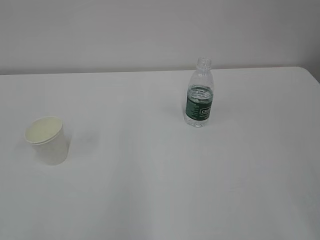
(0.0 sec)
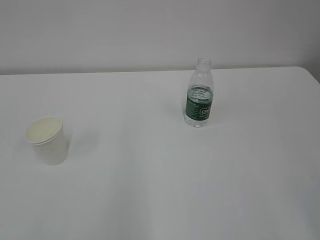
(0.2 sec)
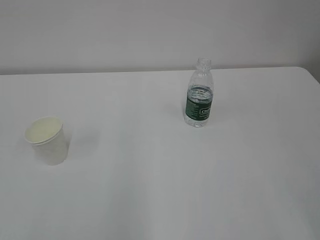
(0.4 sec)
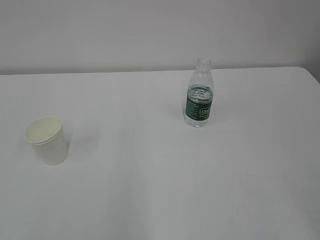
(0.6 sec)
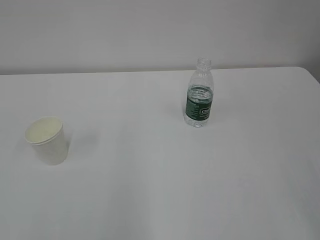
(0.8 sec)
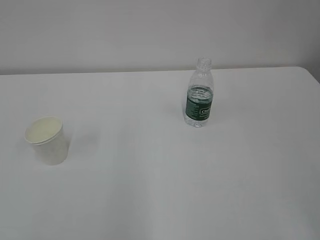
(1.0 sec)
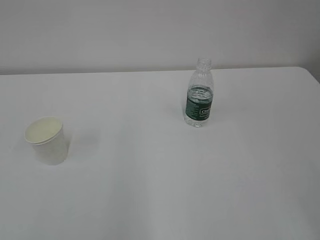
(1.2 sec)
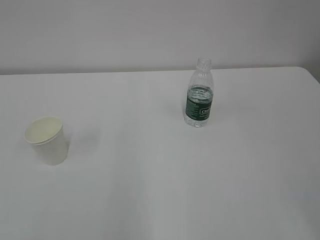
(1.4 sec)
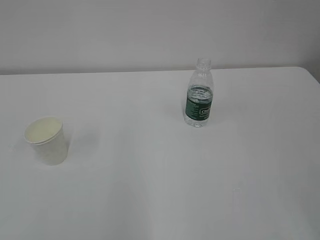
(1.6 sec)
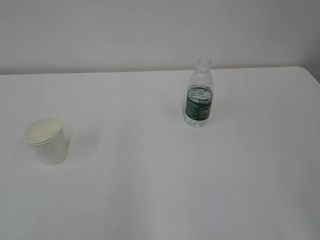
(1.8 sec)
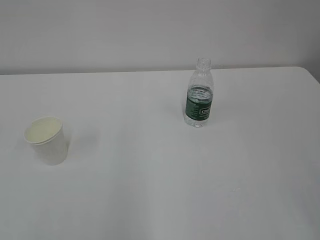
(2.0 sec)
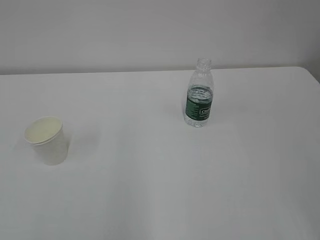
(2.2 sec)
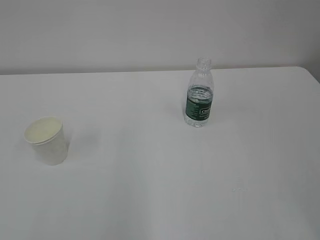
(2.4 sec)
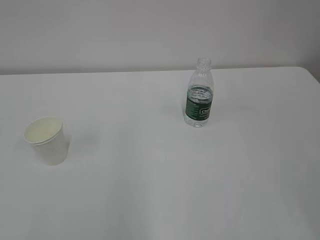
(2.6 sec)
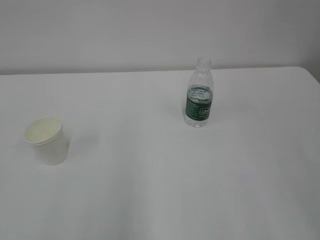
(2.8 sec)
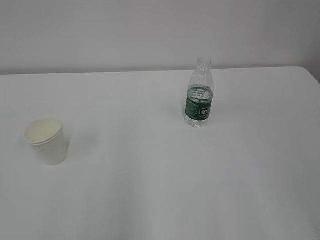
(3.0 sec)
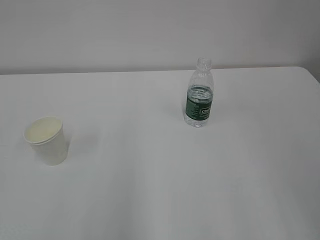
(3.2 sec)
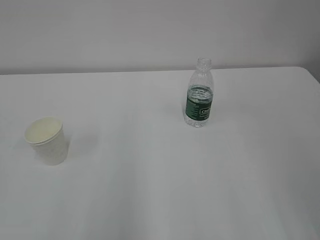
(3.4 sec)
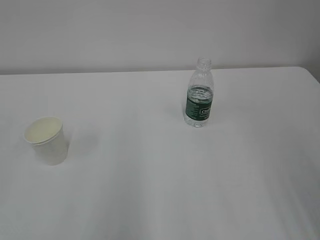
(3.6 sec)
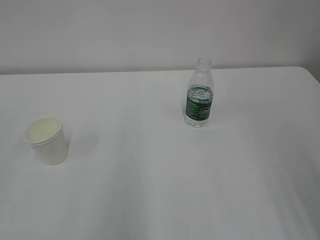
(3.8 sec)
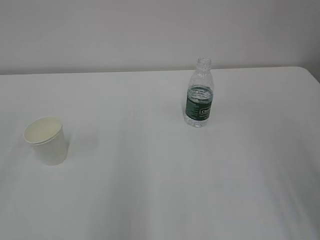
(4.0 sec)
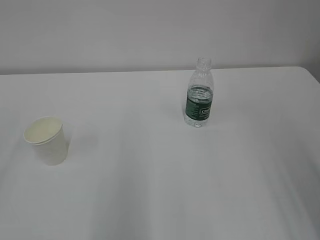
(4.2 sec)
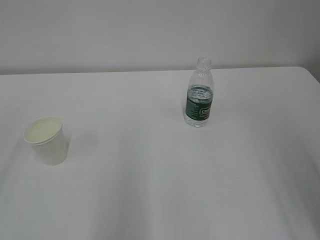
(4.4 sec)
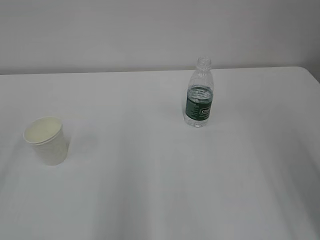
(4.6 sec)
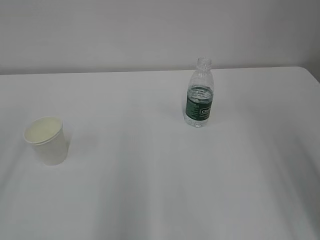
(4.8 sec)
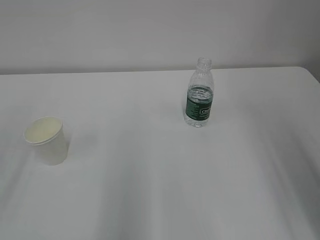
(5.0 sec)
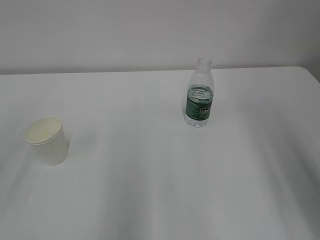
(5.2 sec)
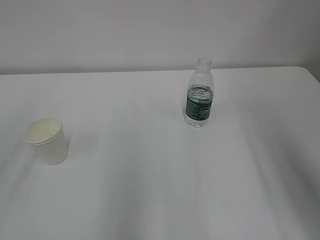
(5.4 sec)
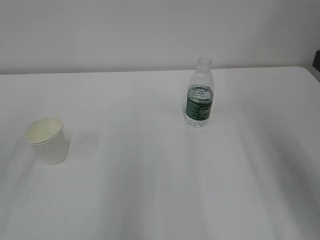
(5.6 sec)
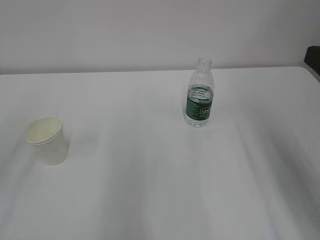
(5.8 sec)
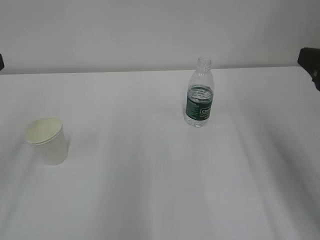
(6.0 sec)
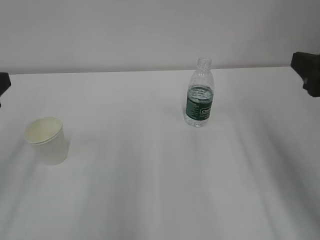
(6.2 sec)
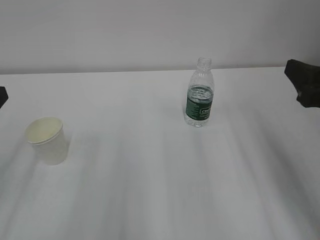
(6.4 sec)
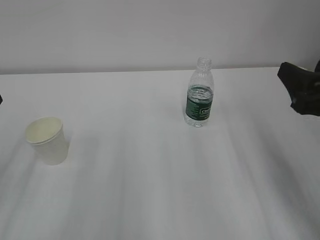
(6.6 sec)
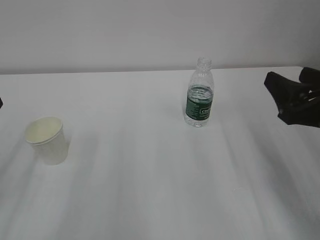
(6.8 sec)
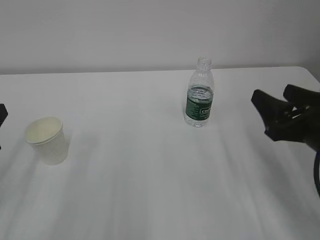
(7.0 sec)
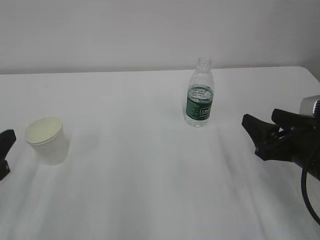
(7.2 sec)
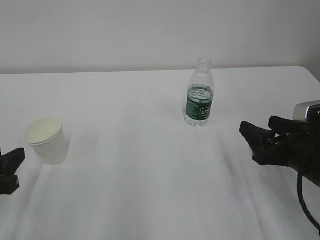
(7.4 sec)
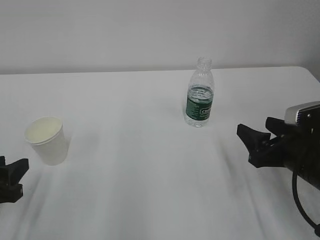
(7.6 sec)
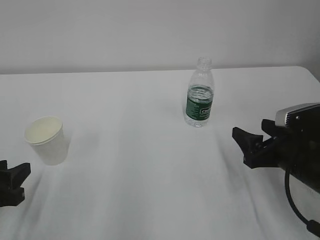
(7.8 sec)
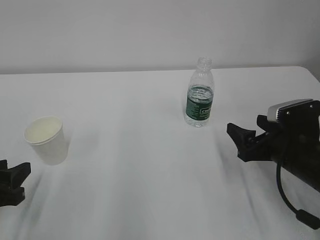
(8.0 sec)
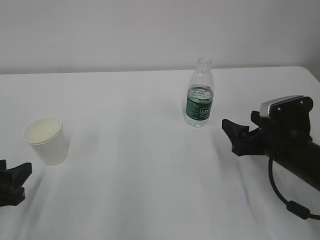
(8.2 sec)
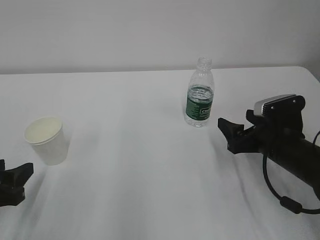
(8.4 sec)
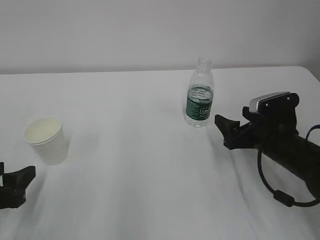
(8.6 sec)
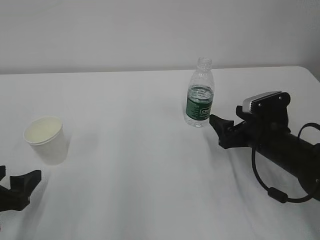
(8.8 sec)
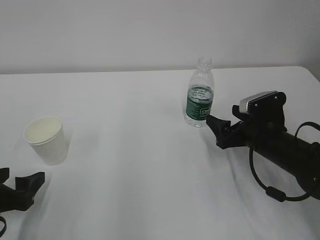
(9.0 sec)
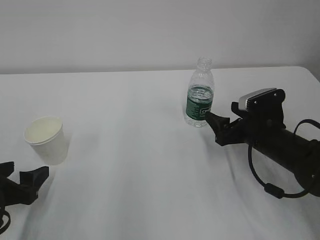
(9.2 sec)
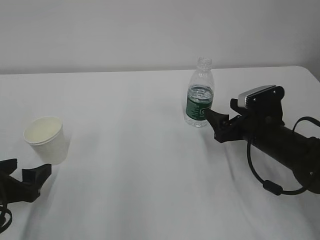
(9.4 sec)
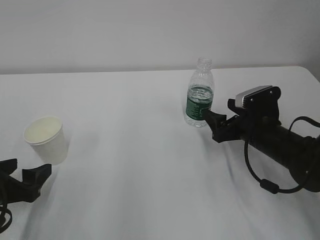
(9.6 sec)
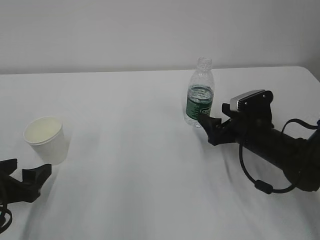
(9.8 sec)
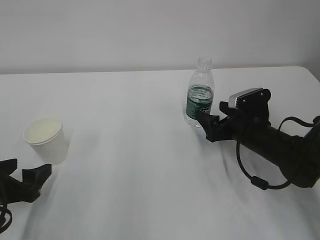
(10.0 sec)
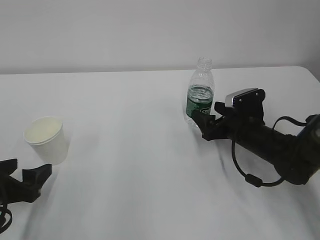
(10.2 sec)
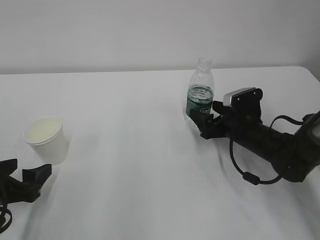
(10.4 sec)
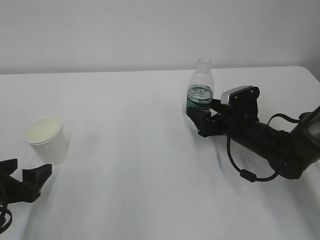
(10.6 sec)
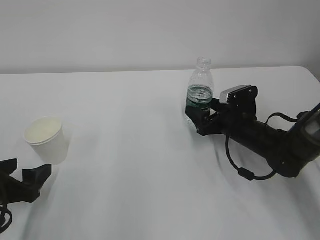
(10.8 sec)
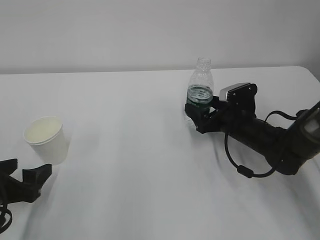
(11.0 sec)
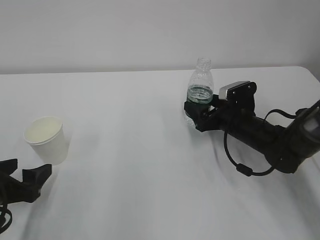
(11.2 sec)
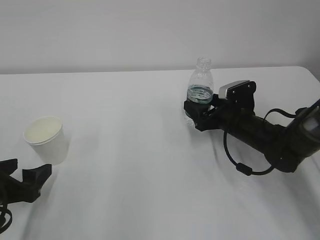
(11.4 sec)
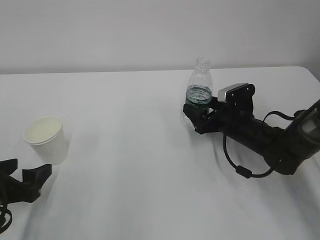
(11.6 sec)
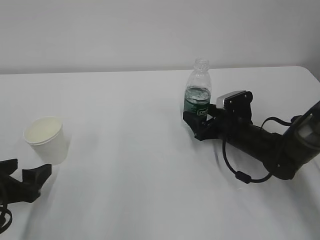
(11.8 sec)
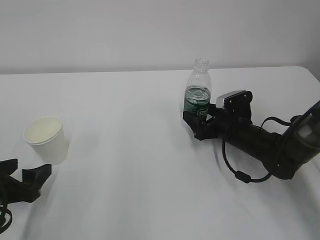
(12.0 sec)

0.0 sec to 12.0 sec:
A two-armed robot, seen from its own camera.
4.4 sec to 6.0 sec: The right gripper moves forward, roughly 10 cm.
6.0 sec to 7.6 sec: Both grippers travel together downward, about 15 cm.
7.6 sec to 9.0 sec: The left gripper opens. Meanwhile the right gripper shifts some 10 cm forward.
9.0 sec to 10.4 sec: The right gripper shifts by roughly 5 cm.
10.4 sec to 12.0 sec: The grippers stay close to where they were, moving slightly.

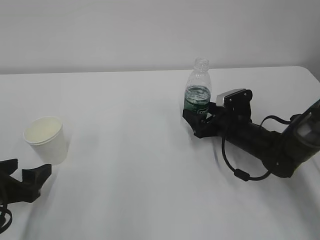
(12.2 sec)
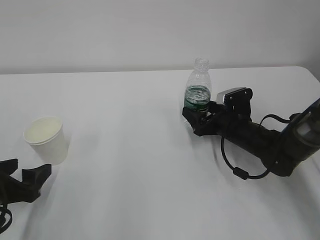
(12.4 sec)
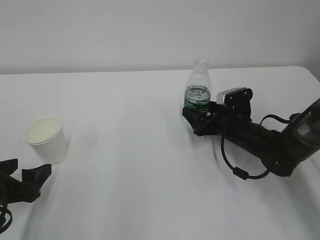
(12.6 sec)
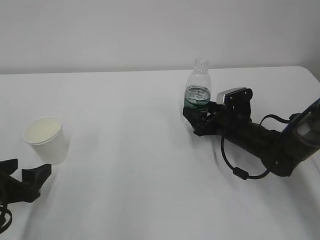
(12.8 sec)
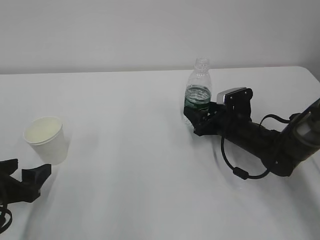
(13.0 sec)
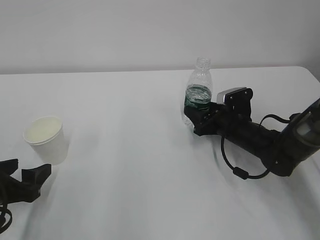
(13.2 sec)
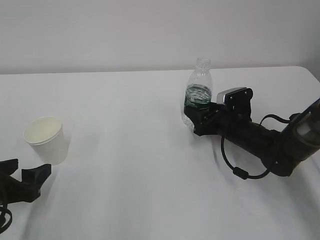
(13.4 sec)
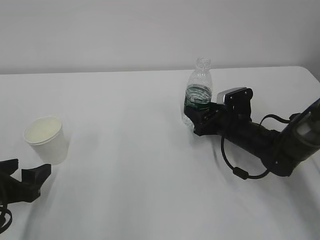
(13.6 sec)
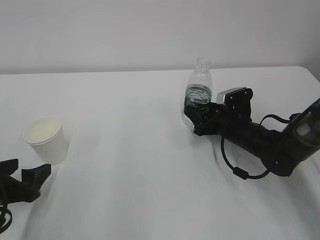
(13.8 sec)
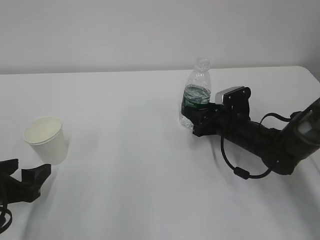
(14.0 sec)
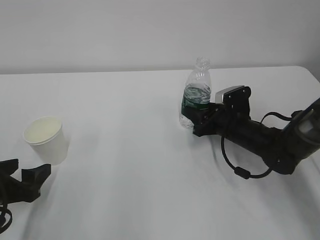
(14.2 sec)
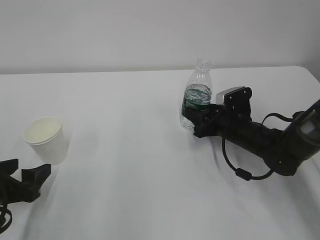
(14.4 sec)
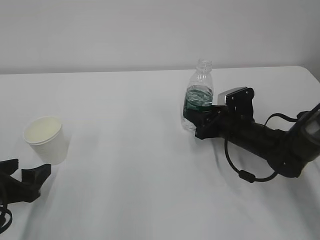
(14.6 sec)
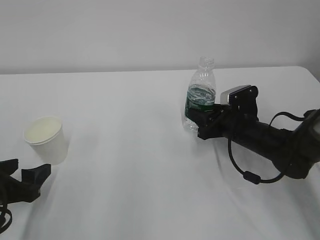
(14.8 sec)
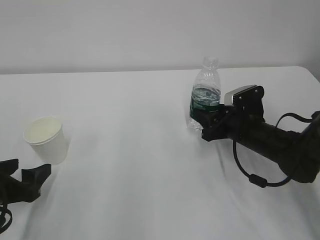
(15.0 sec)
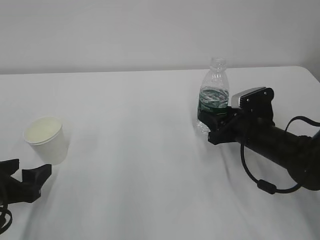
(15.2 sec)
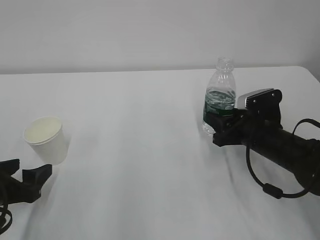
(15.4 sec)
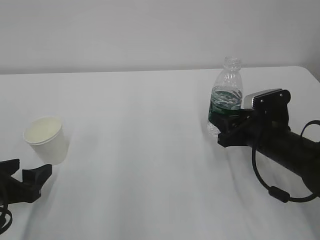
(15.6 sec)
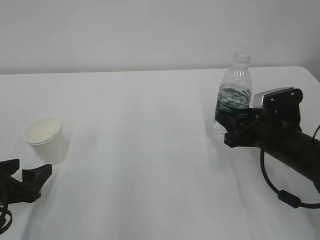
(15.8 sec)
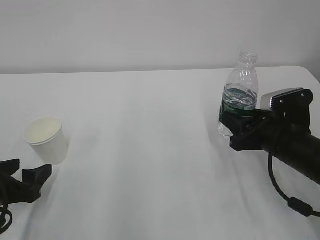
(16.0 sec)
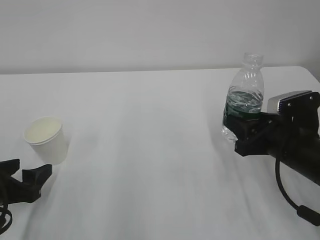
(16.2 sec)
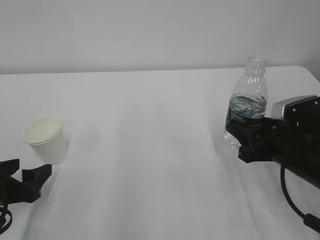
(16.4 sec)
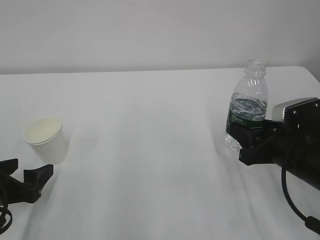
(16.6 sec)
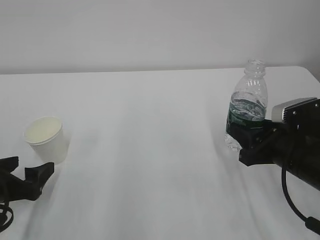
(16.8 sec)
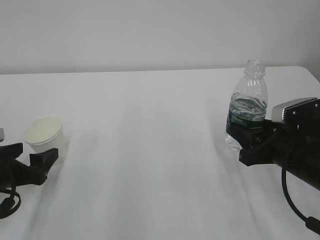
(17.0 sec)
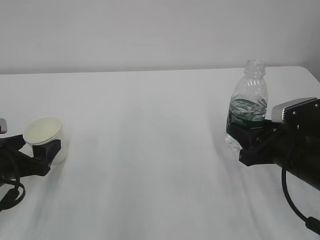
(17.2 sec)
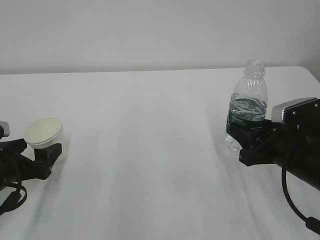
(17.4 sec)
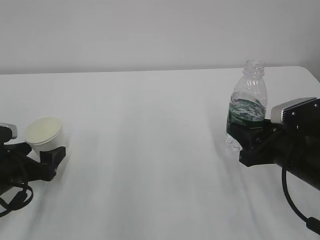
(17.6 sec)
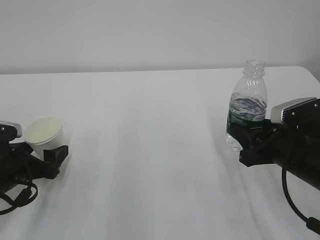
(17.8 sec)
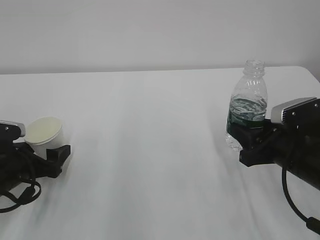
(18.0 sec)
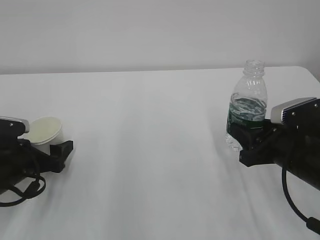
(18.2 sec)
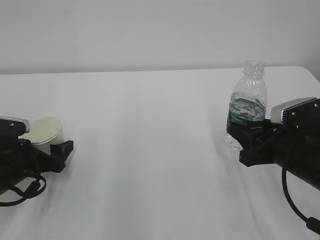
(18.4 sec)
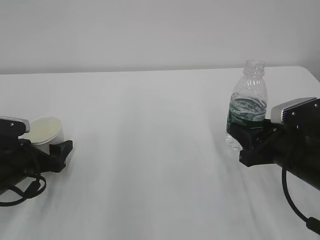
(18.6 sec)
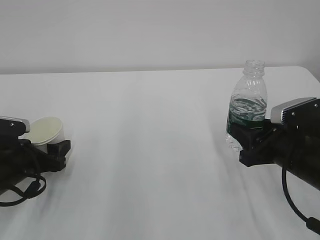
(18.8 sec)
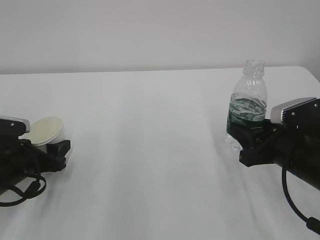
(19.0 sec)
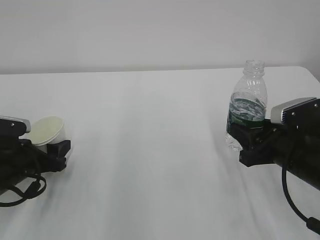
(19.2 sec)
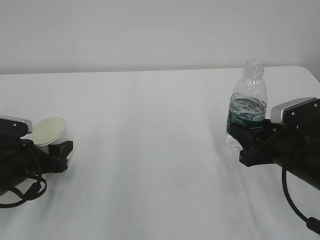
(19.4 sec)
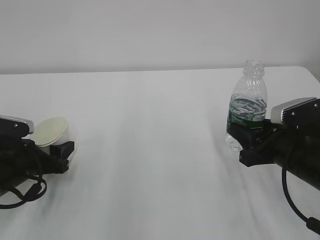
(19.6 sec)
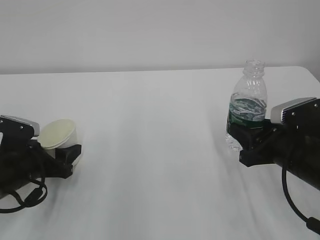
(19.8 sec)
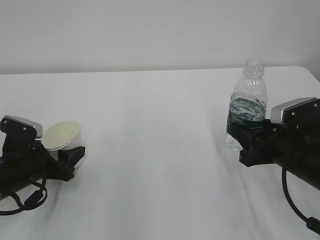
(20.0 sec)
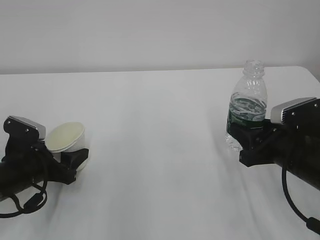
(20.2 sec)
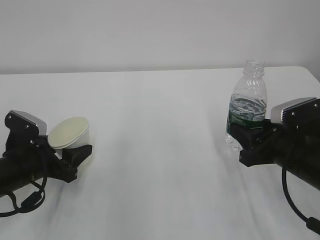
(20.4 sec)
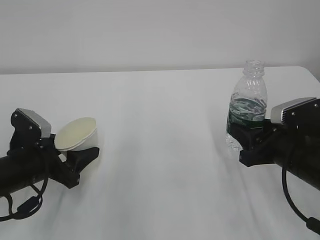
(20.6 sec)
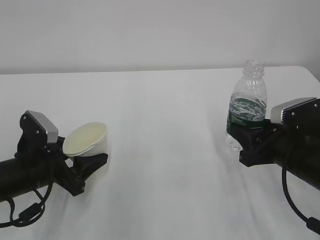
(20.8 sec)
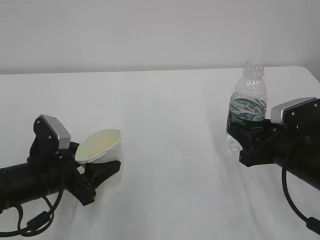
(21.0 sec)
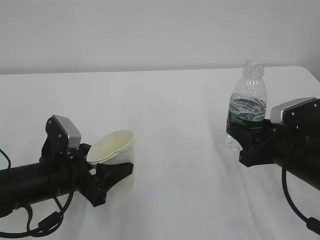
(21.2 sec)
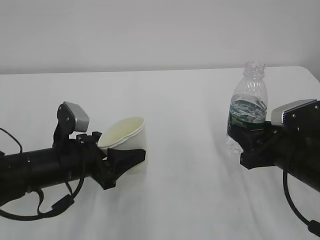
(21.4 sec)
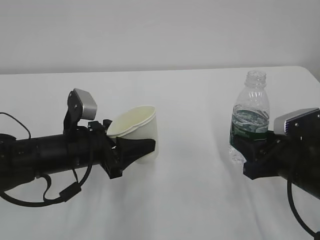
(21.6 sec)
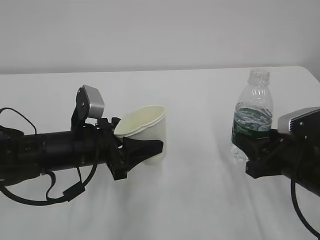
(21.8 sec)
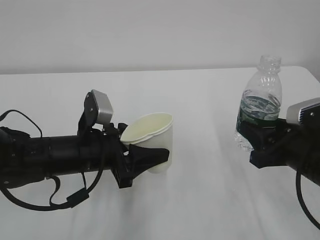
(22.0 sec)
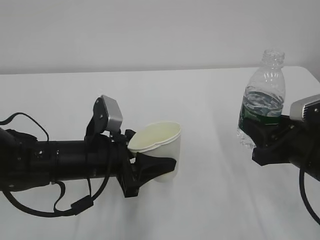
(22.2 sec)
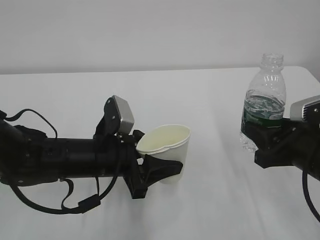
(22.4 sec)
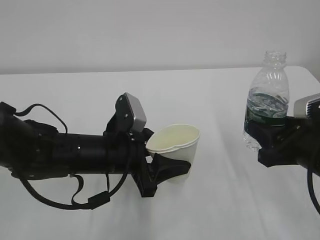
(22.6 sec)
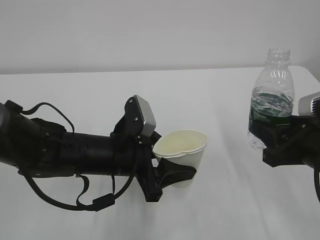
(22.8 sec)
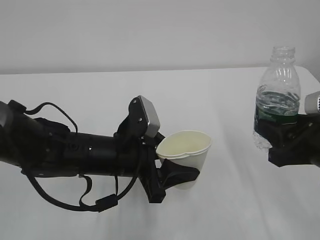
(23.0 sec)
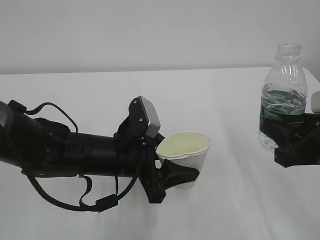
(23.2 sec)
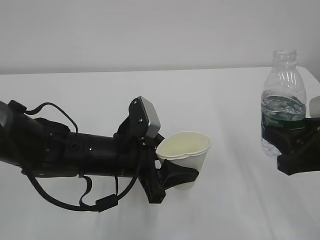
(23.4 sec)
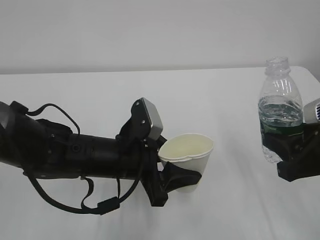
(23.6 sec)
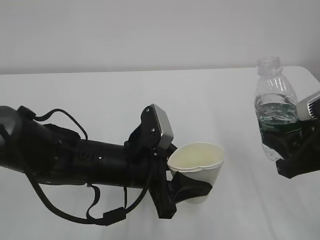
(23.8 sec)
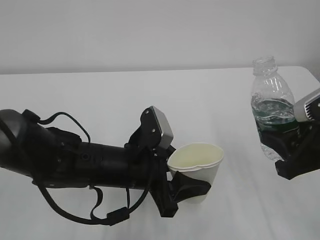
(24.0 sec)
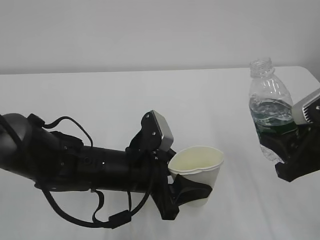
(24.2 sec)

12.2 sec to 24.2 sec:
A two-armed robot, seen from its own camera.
12.2 sec to 13.8 sec: The right gripper closes its fingers.
13.8 sec to 15.2 sec: The right gripper goes about 5 cm backward.
15.2 sec to 16.6 sec: The right gripper heads backward, covering some 10 cm.
16.6 sec to 18.2 sec: The left gripper travels forward by about 5 cm.
18.2 sec to 19.8 sec: The left gripper closes up.
19.8 sec to 21.2 sec: The left gripper moves to the right, approximately 10 cm.
21.2 sec to 22.6 sec: The left gripper moves to the right, approximately 10 cm.
22.6 sec to 24.2 sec: There are only small adjustments of the grippers.
